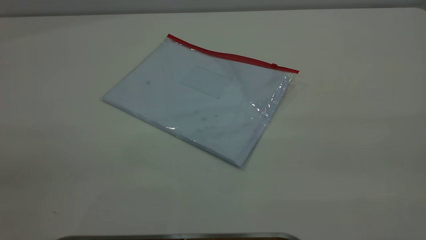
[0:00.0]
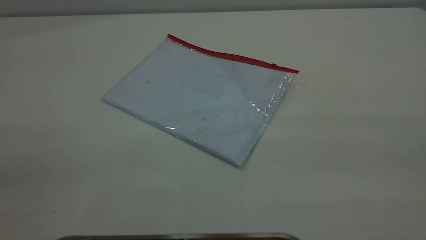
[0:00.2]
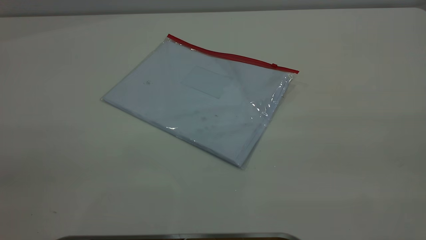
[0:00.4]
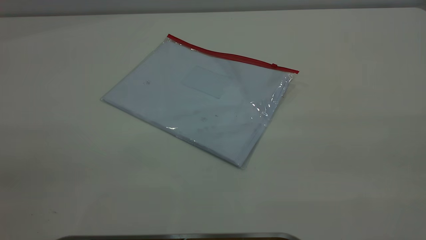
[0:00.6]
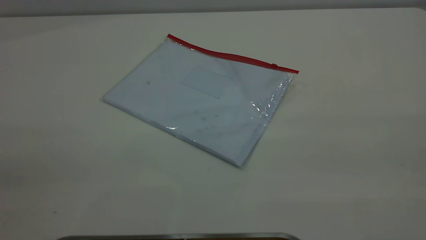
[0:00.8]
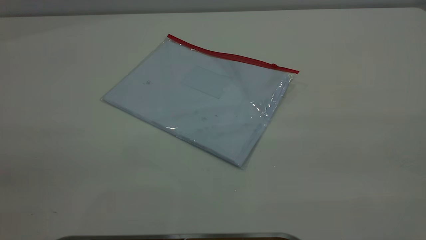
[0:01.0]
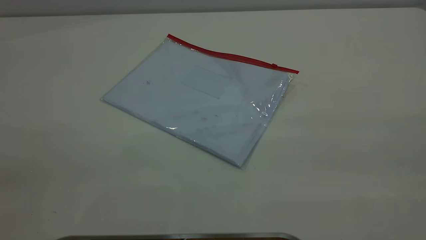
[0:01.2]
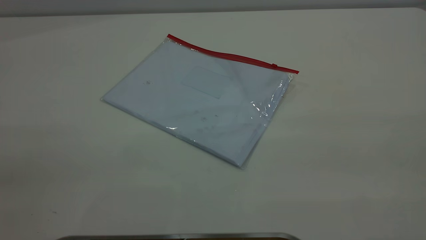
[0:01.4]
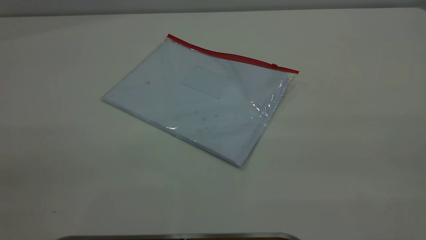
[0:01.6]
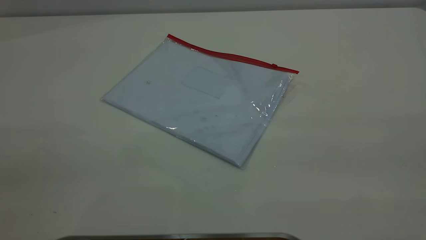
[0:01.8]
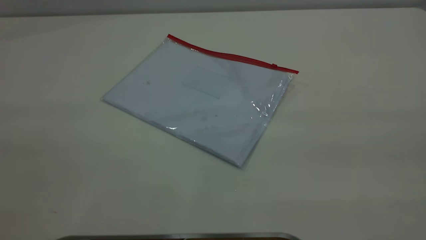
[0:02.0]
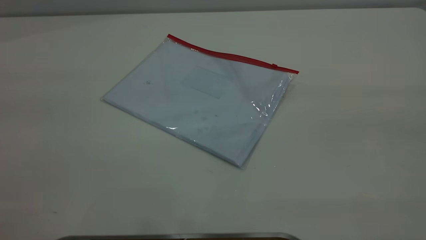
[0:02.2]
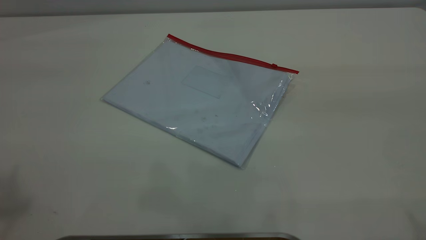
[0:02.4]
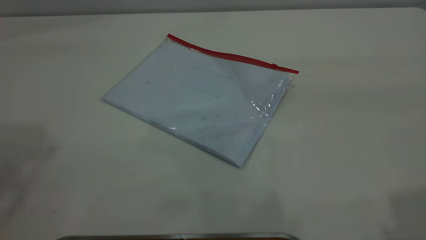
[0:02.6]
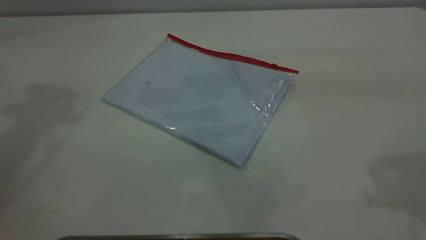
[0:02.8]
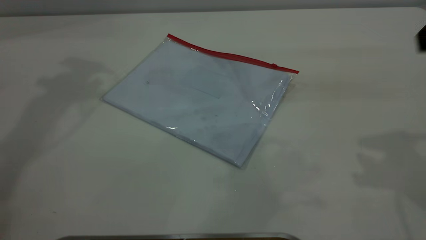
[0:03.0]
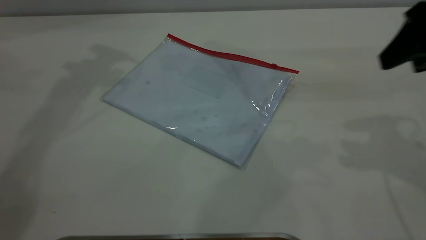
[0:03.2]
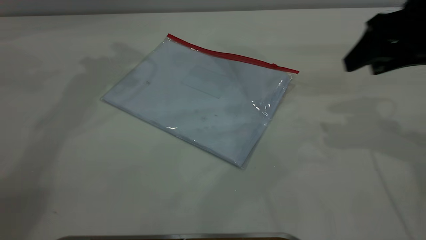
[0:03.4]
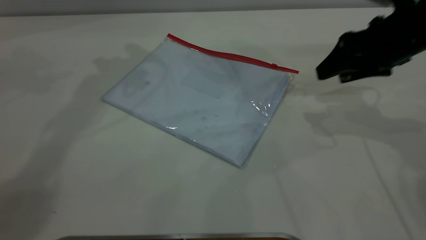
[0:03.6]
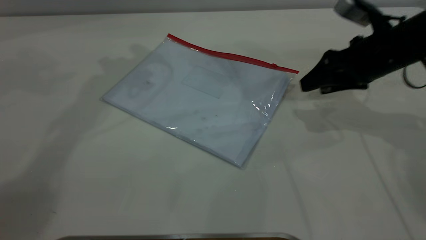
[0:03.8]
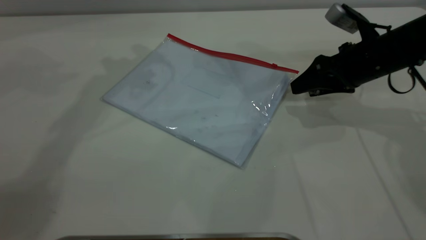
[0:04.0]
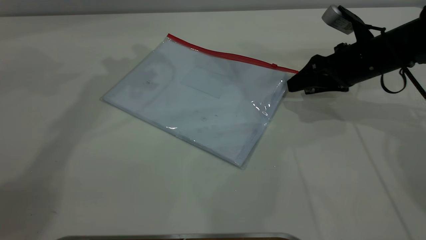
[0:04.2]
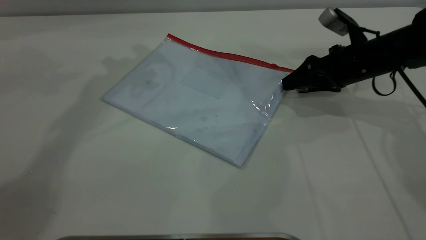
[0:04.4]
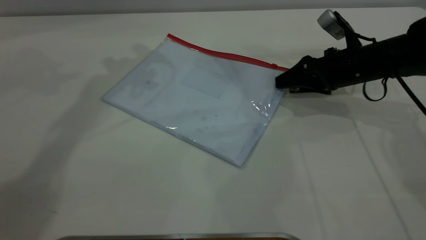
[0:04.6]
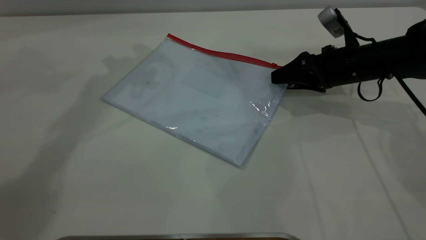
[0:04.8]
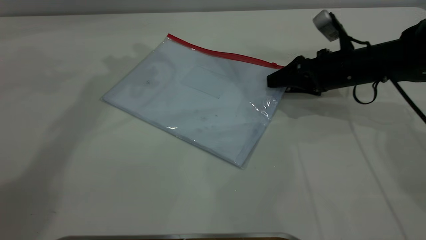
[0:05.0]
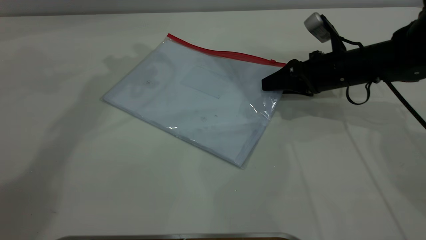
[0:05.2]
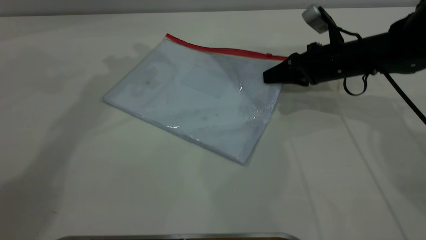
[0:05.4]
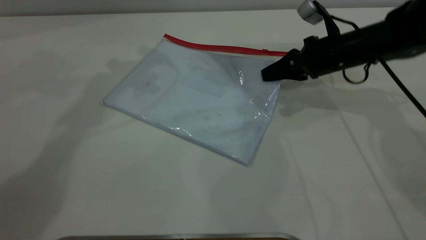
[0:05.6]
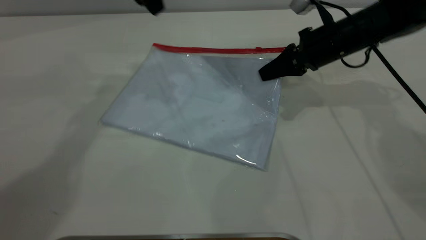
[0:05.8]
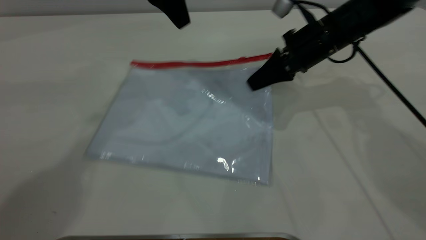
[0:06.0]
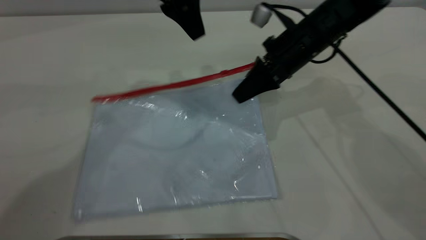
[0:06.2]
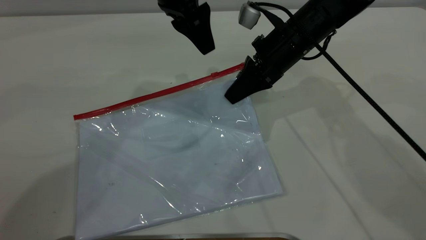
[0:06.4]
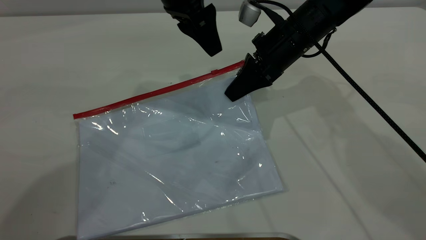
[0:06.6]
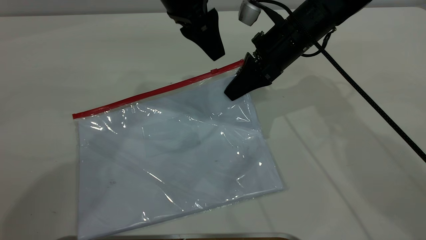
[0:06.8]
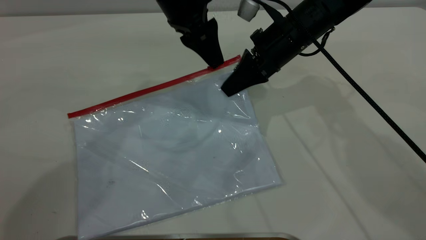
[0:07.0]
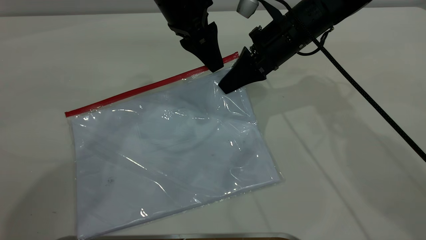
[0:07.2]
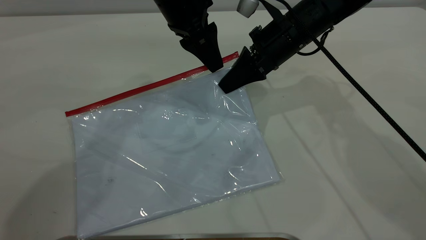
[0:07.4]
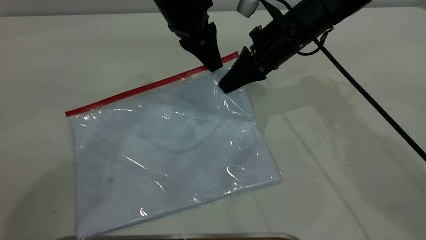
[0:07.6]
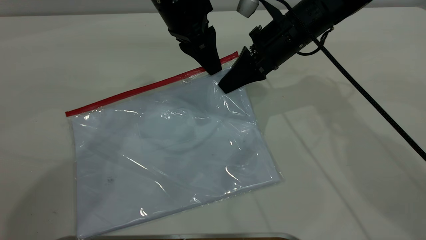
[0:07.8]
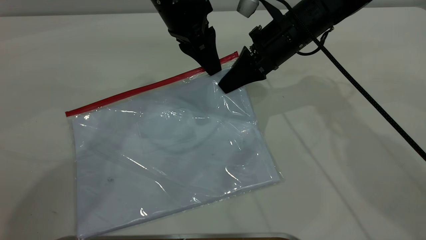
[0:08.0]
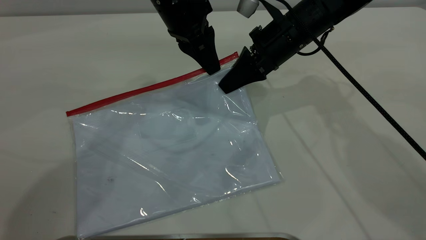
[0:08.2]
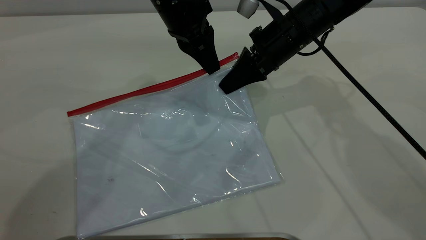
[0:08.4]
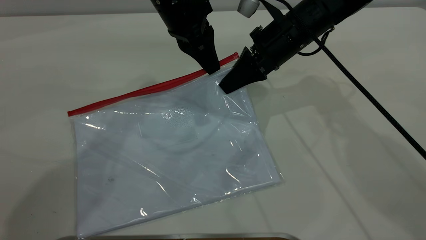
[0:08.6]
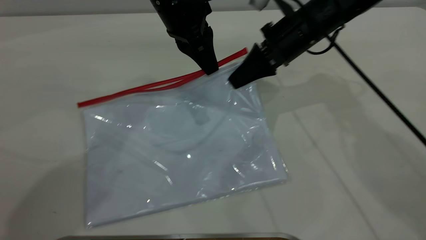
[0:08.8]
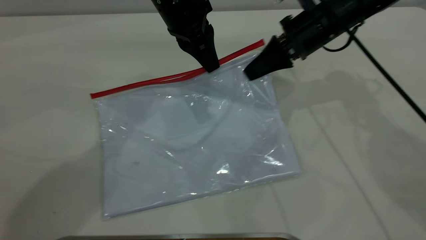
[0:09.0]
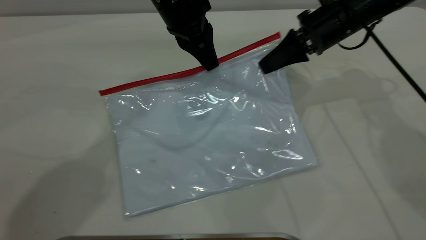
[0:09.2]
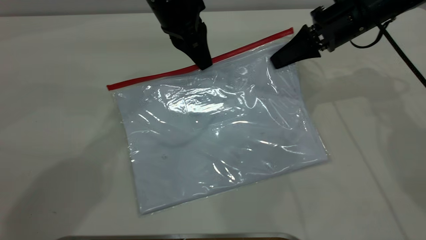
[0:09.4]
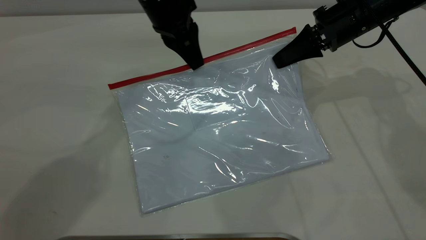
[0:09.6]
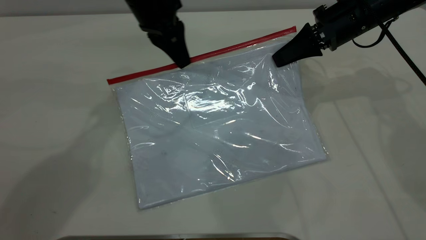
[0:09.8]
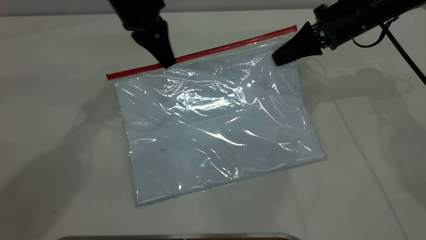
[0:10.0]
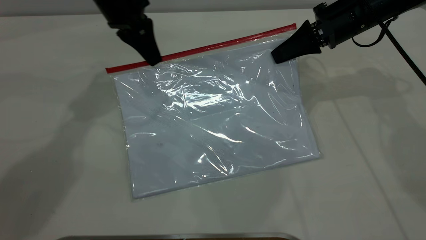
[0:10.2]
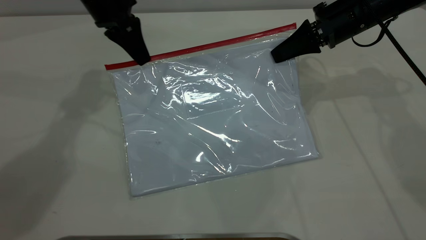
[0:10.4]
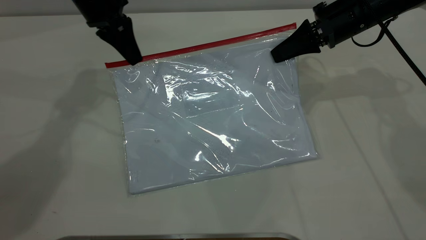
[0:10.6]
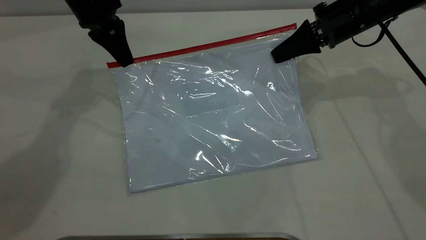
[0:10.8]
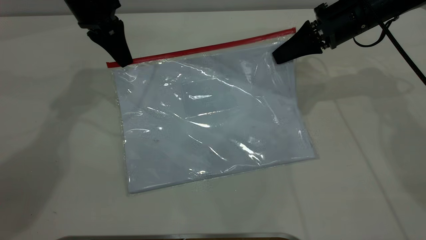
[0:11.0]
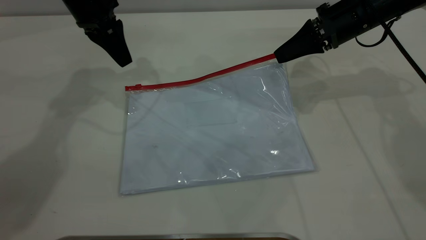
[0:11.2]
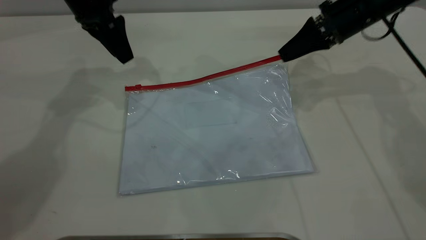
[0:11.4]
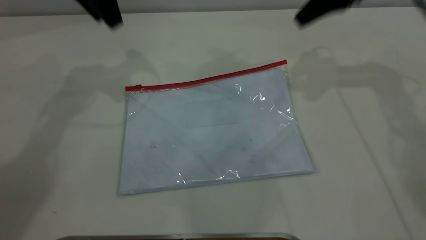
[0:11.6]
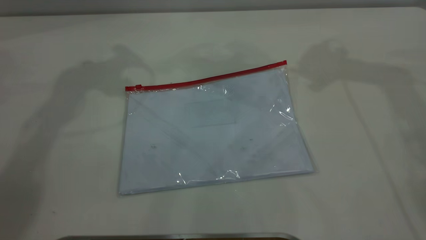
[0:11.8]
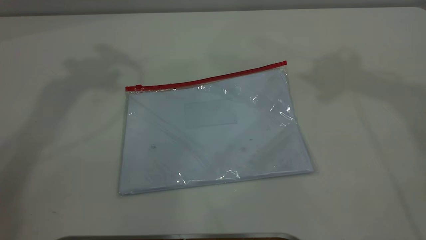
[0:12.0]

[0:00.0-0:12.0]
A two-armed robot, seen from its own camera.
Step, 0:00.0 to 0:05.6: Pick up the transparent plastic bag with the right gripper.
Step, 0:05.8 to 0:11.2: Pulling up the zipper on the transparent plastic bag with the left gripper to close it.
0:00.0 to 0:01.6: Both grippers stay about where they are.
0:03.0 to 0:04.4: The right gripper shifts about 25 cm downward and forward; the left gripper moves to the right, some 10 cm.
0:04.4 to 0:06.0: The left gripper goes about 10 cm to the right and downward. The right gripper is displaced to the left by approximately 10 cm, and closes.
0:06.0 to 0:07.6: The left gripper goes approximately 5 cm downward.
0:07.6 to 0:09.0: The right gripper goes about 5 cm to the right, while the left gripper closes up.
0:09.0 to 0:10.4: The left gripper goes roughly 10 cm to the left.
0:10.4 to 0:12.0: The two grippers go approximately 30 cm upward. The left gripper opens. Meanwhile the right gripper opens.

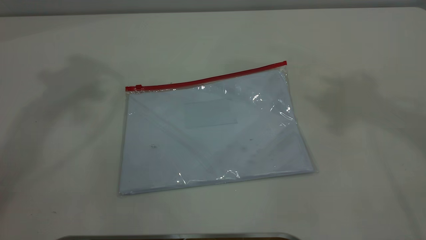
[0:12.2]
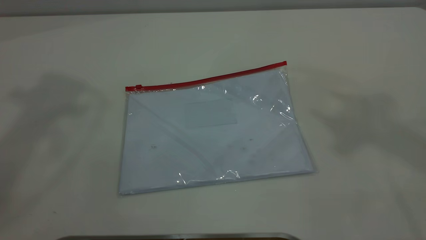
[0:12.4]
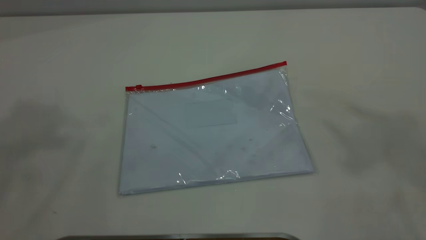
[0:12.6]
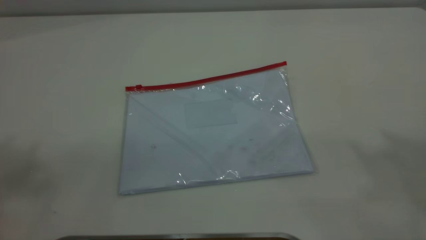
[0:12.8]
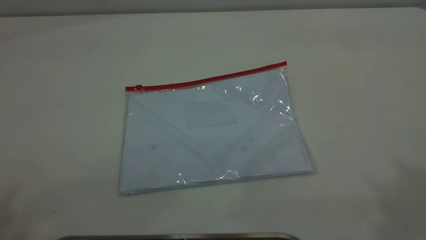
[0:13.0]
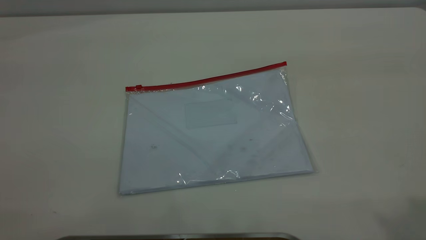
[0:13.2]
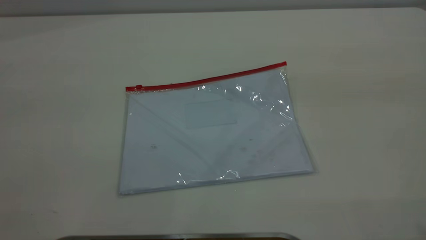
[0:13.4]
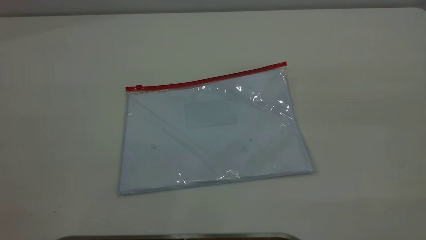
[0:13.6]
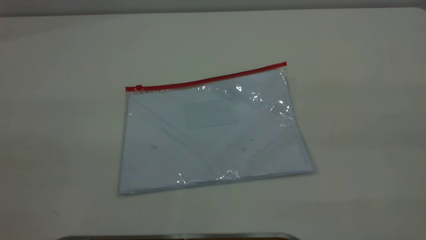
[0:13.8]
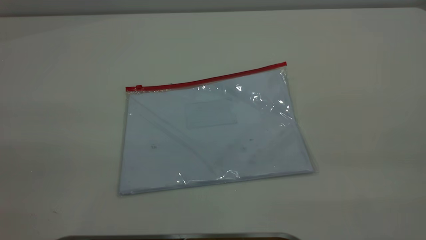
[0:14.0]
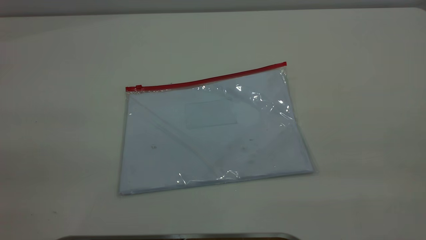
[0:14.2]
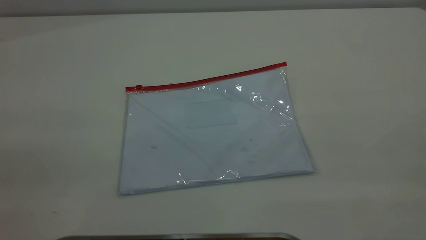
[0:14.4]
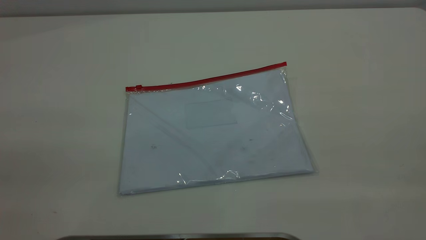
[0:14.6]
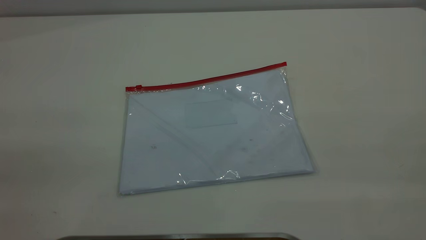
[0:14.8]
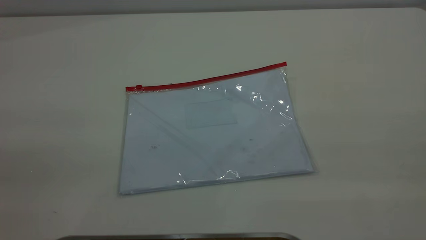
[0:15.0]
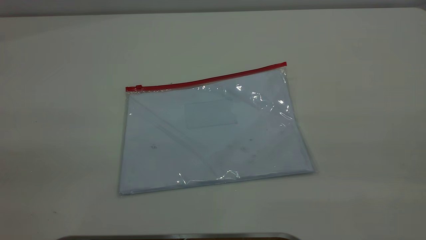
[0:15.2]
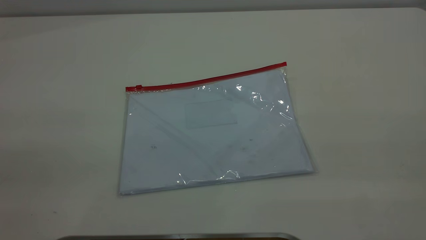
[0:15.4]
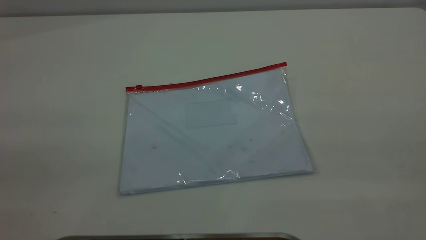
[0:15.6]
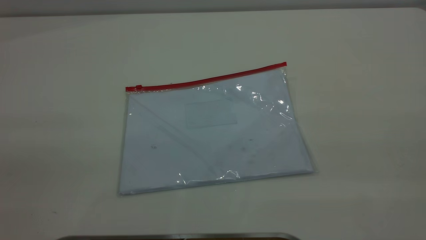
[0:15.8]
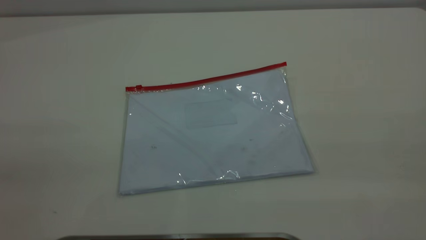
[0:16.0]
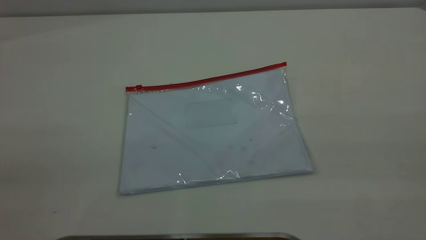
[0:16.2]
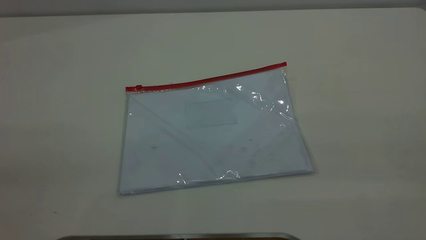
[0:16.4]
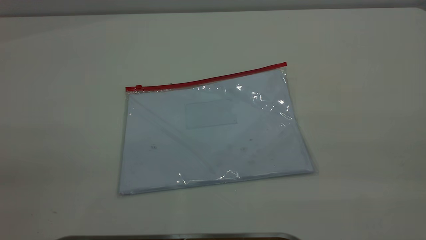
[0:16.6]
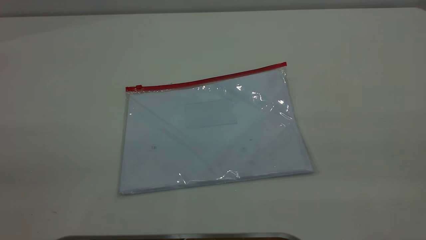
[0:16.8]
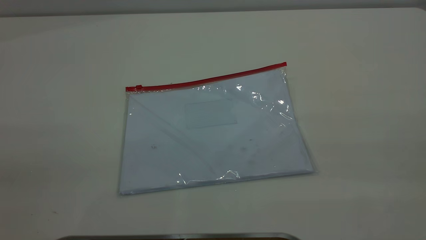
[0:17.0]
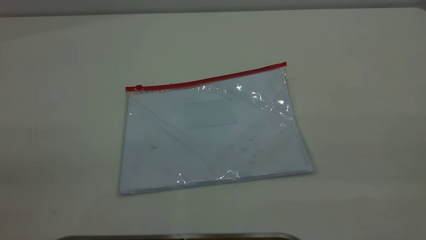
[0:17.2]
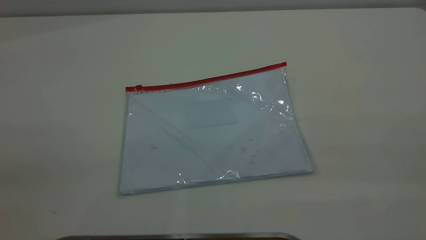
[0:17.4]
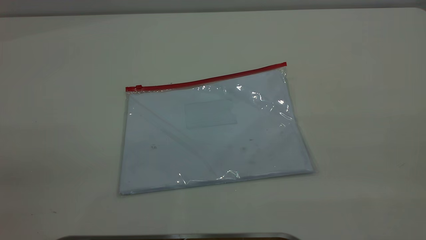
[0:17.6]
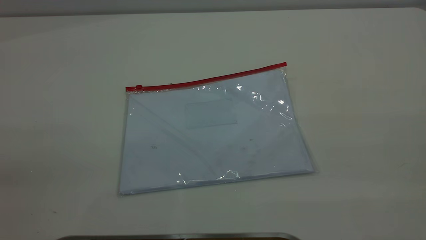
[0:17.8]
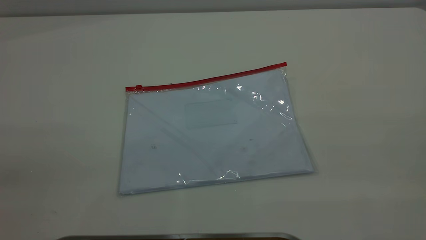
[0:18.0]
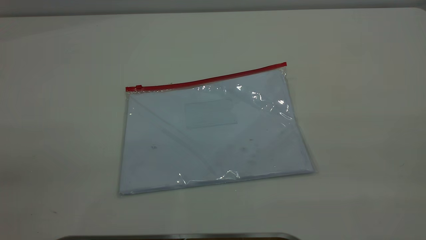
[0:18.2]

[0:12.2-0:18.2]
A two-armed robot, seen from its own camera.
0:16.6 to 0:18.2: The two grippers keep their place.
